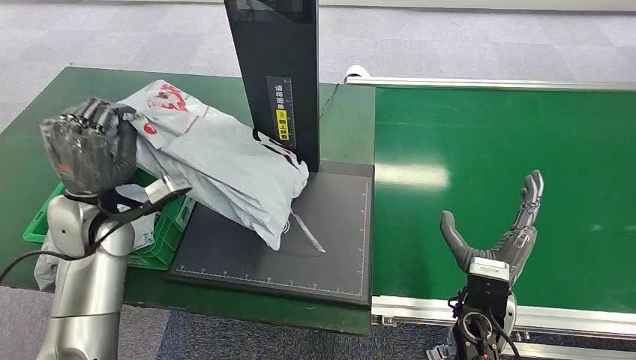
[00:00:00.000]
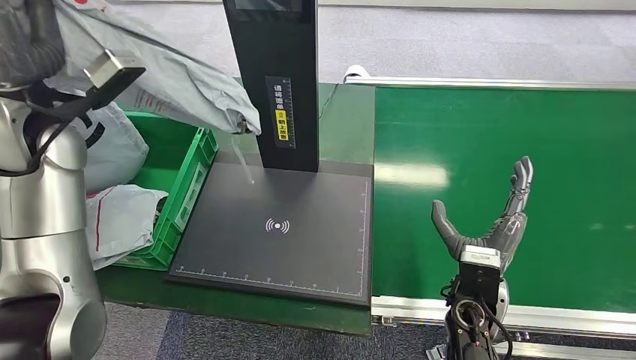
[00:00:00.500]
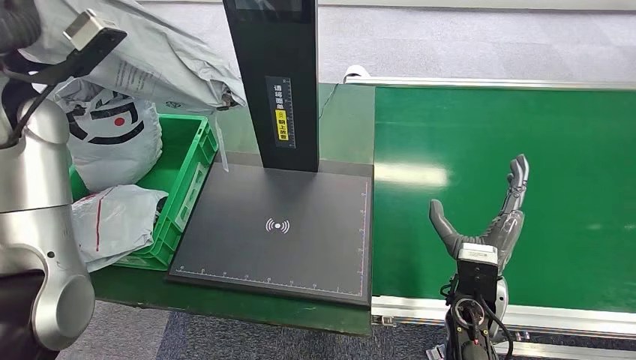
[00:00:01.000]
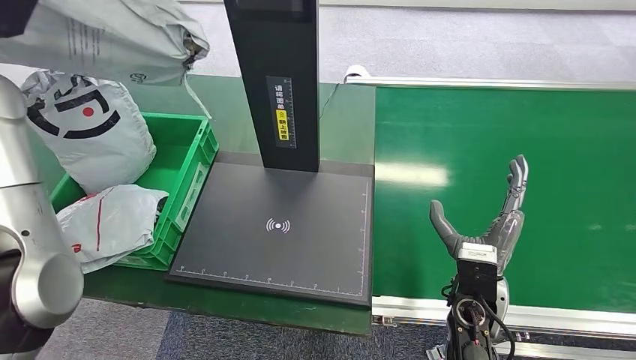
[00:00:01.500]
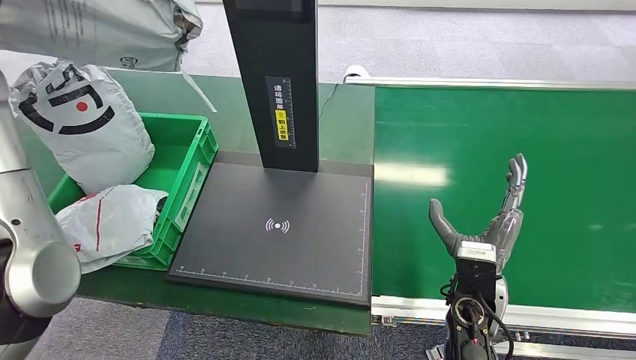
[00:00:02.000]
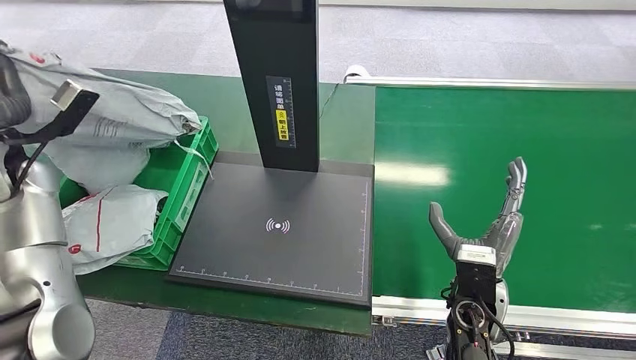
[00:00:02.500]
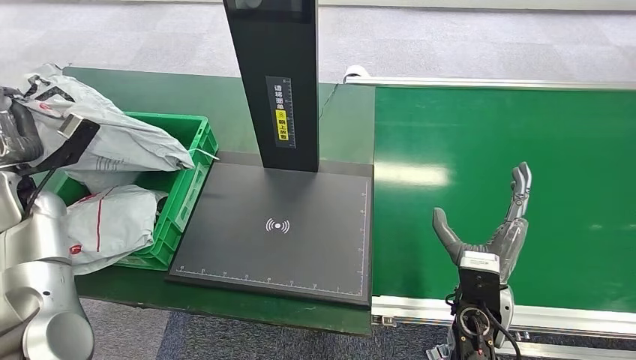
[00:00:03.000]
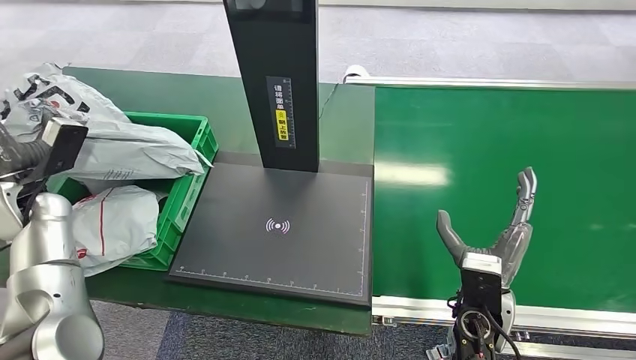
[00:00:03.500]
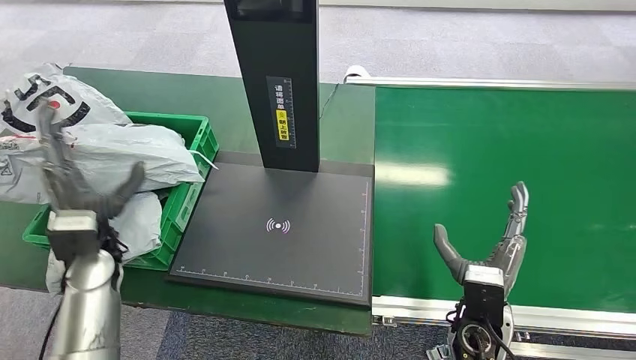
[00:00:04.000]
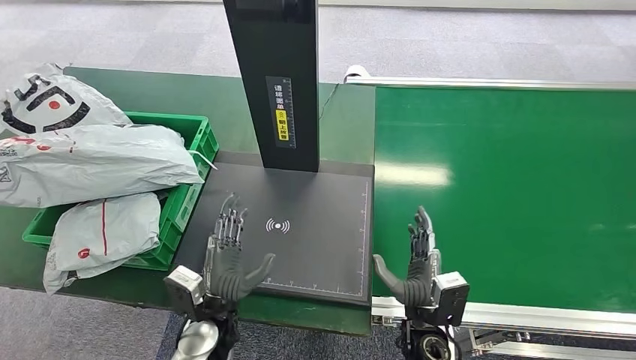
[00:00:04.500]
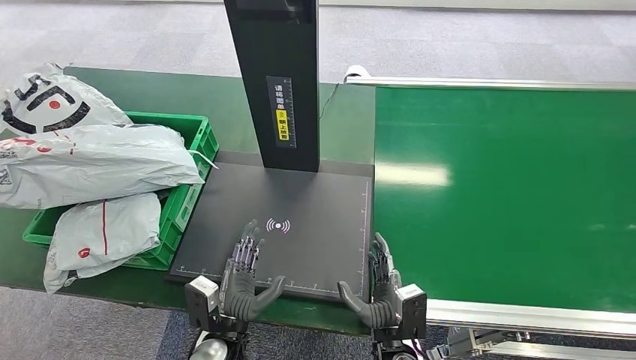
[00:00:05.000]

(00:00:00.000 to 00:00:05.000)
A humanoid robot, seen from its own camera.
Step, 00:00:01.000 - 00:00:05.000: Place the package into the parcel locker.
